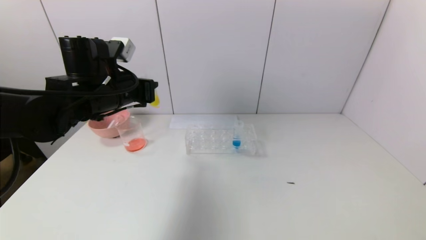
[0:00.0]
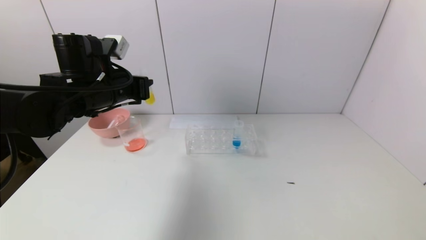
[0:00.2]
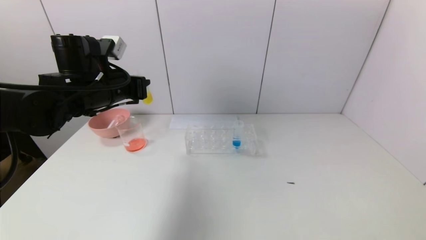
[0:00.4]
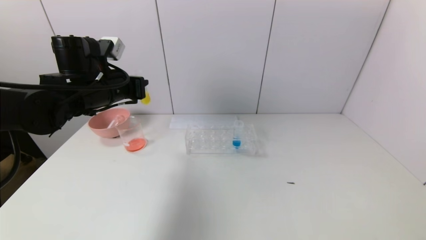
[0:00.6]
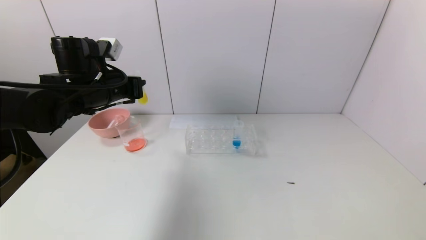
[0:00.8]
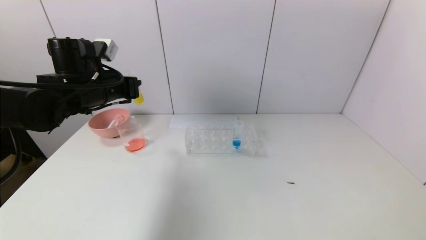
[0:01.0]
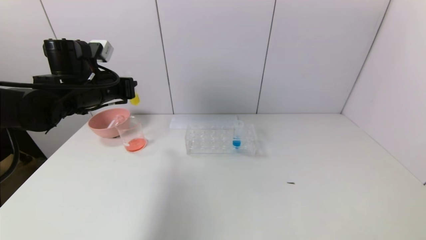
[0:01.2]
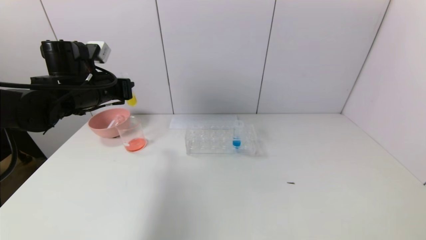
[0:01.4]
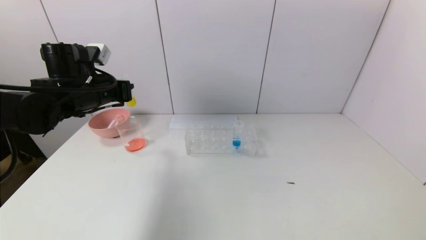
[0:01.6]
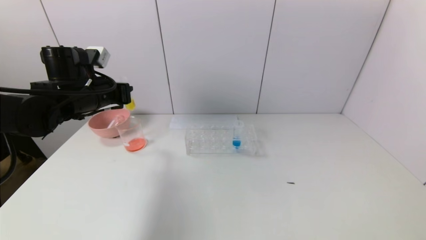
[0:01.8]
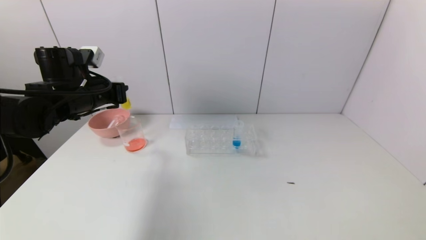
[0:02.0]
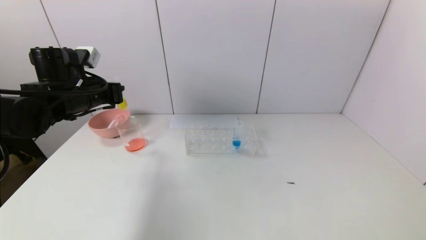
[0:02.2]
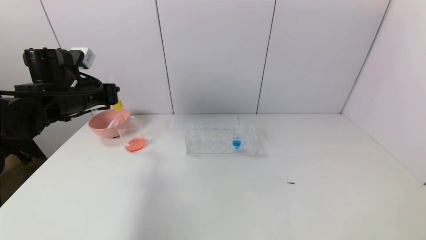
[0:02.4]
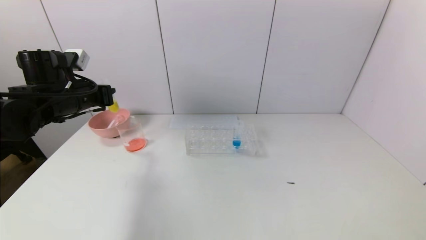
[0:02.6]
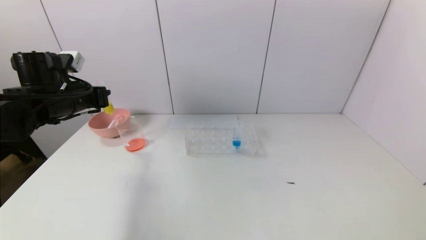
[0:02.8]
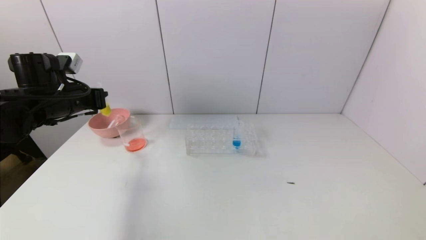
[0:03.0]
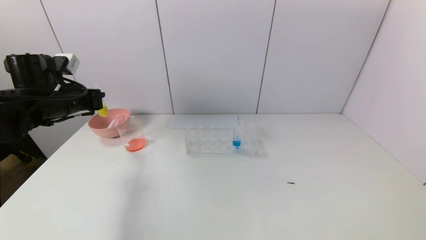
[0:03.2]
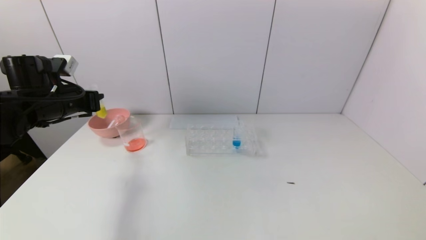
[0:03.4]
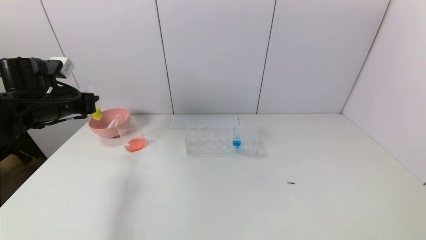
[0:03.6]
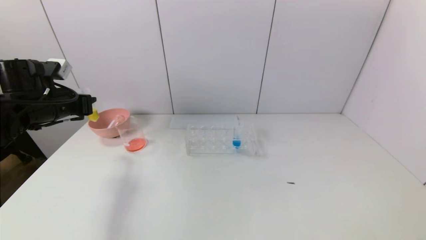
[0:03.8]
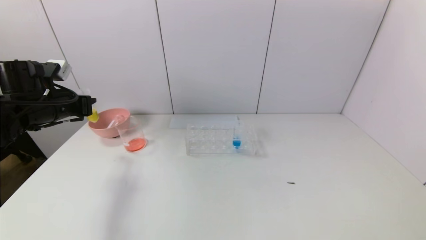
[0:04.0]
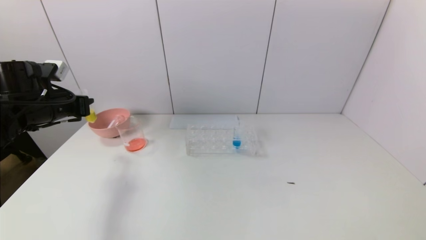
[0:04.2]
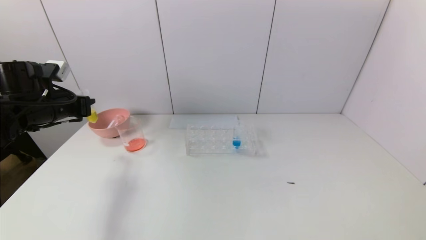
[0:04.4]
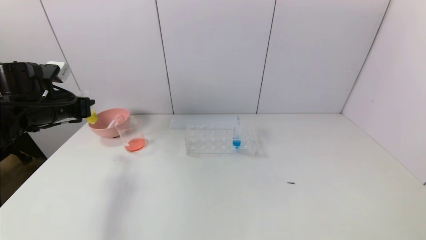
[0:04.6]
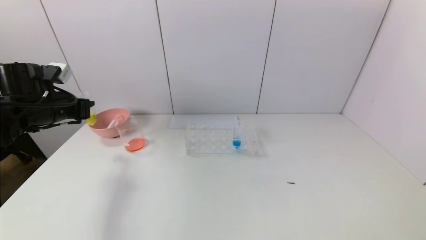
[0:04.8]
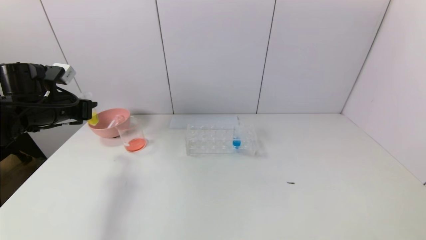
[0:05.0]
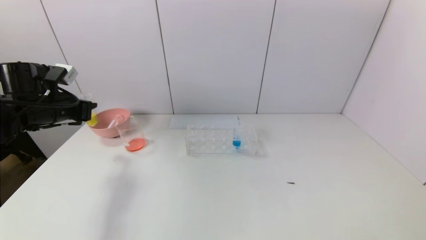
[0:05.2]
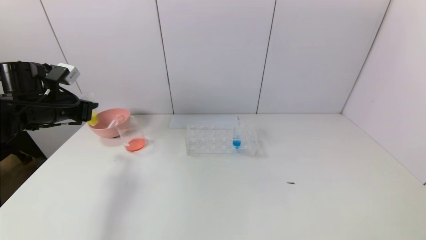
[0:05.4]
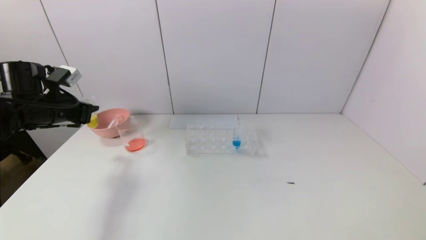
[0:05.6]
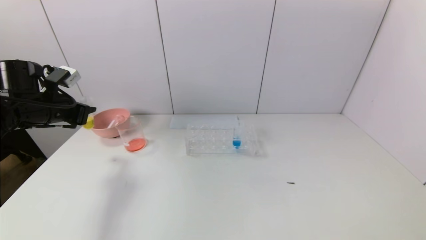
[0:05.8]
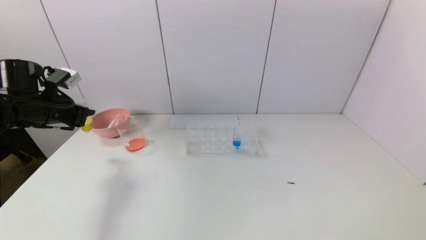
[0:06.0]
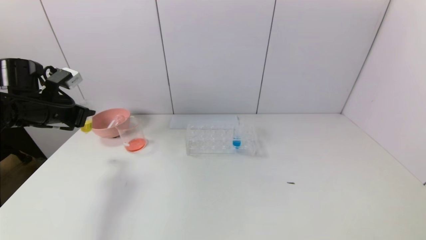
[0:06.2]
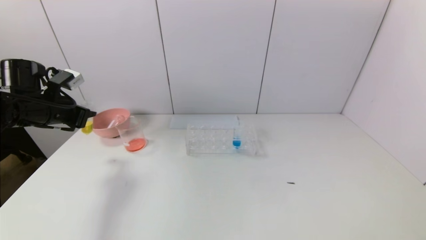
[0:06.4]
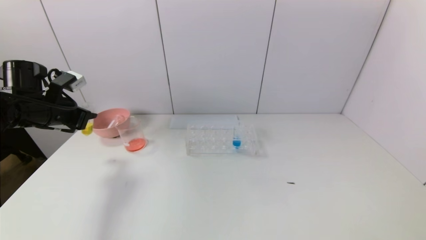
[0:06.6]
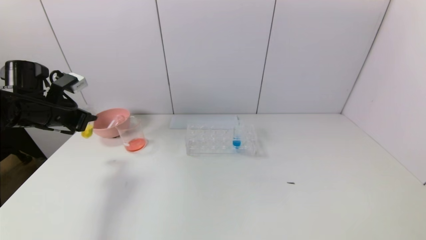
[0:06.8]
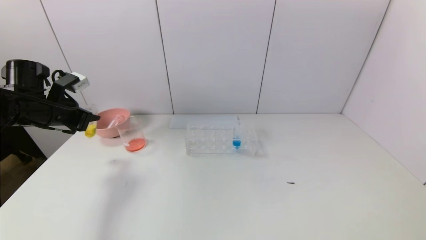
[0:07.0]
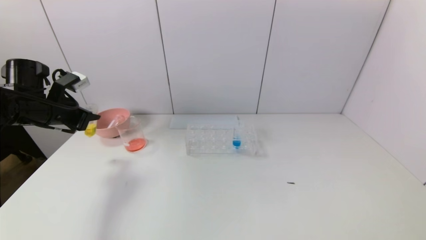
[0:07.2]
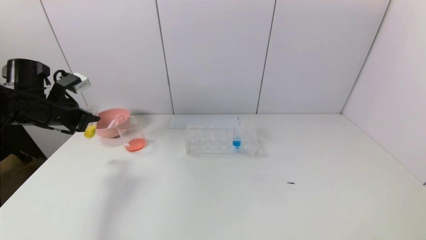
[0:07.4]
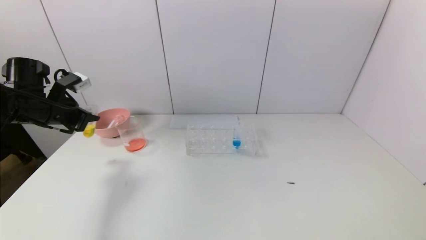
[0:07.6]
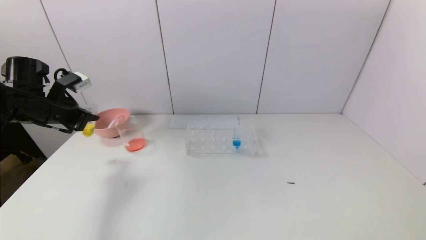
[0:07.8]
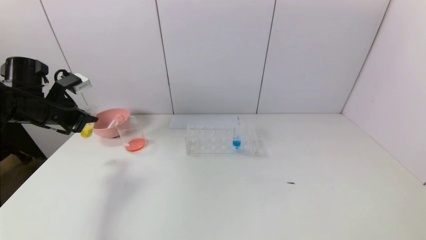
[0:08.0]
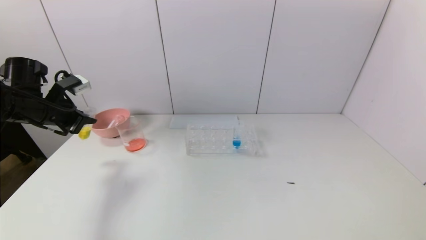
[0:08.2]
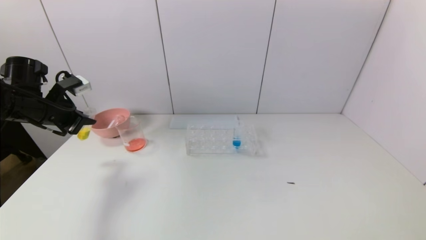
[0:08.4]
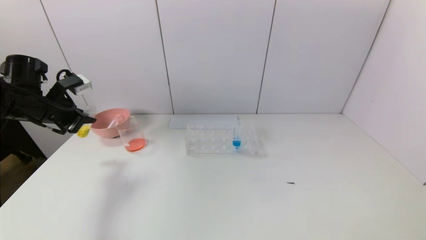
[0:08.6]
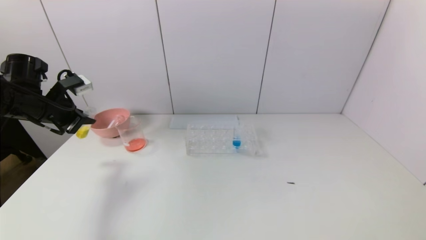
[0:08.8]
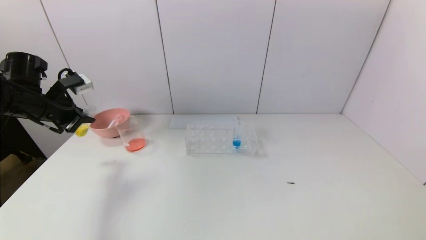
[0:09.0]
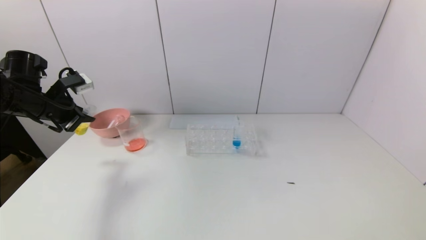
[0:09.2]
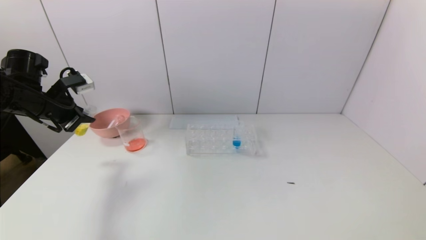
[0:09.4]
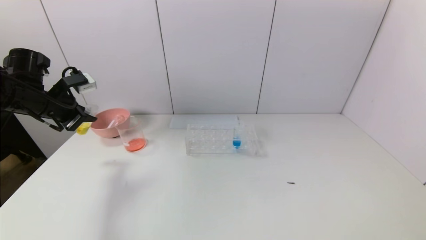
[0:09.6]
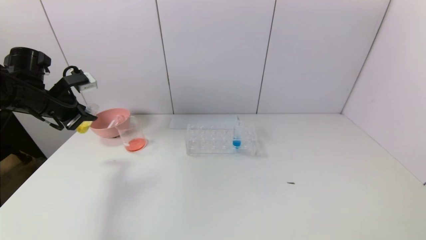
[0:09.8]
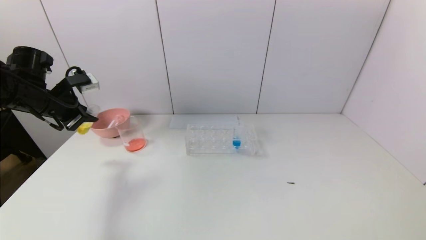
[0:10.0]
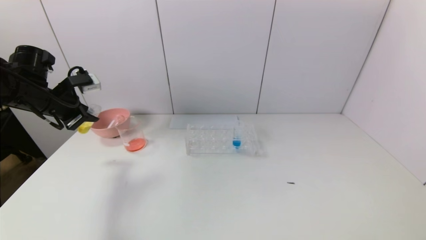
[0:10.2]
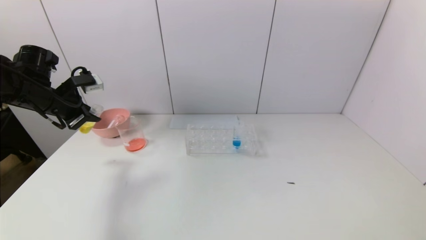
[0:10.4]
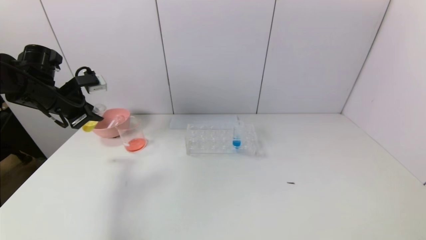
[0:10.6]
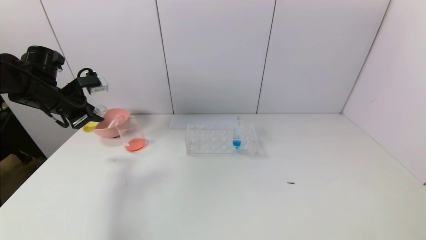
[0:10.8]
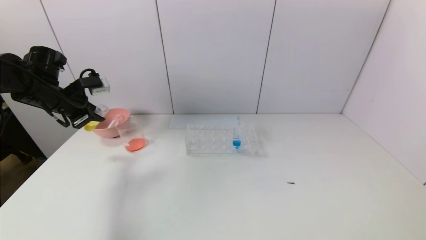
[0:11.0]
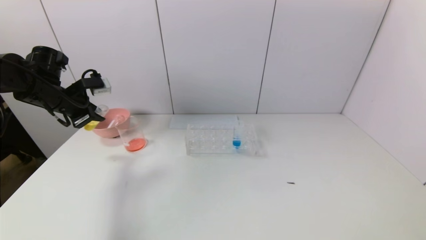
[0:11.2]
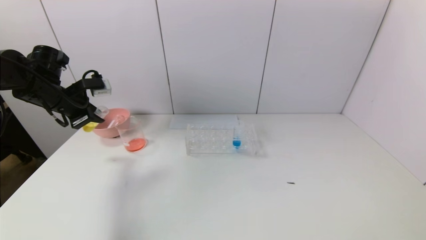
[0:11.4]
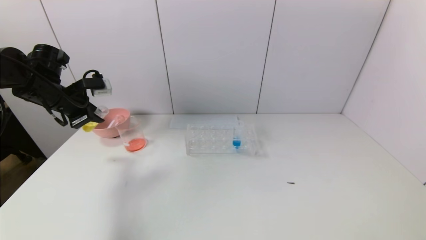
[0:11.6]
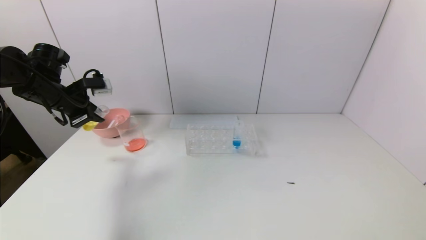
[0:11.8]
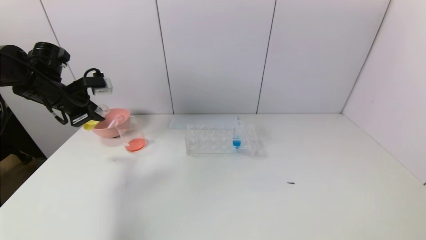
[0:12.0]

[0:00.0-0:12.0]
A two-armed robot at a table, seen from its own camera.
Task of the whole recording: pick up the test tube with yellow pigment and the test tube with red pigment by grippers and pour them into the beaker.
0:00.0 to 0:01.6: The left gripper travels to the left by approximately 5 cm.
0:01.6 to 0:03.0: The left gripper moves to the left, some 5 cm.
0:03.0 to 0:04.4: The grippers make only small movements.
0:04.4 to 0:06.0: The grippers stay close to where they were, moving slightly.
0:06.0 to 0:07.6: The grippers make only small movements.
0:07.6 to 0:09.0: The grippers move only a little.
0:09.0 to 0:10.4: There are only small adjustments of the grippers.
0:10.4 to 0:12.0: The grippers move only a little.

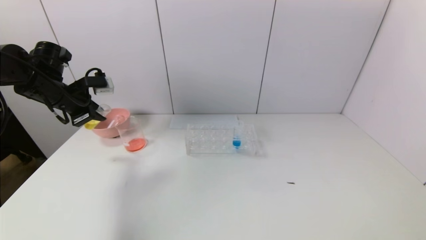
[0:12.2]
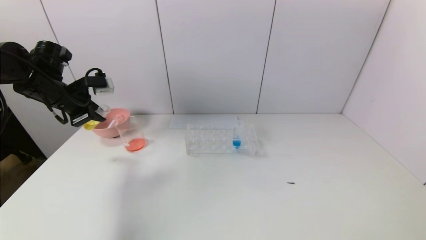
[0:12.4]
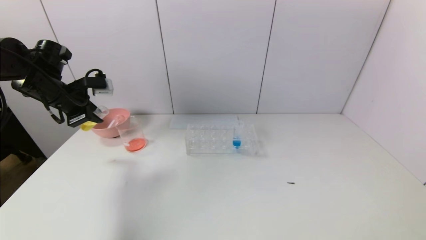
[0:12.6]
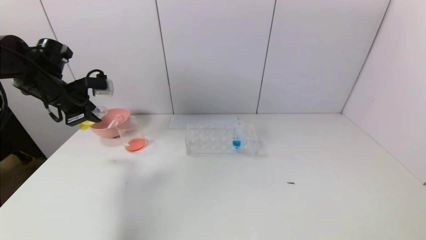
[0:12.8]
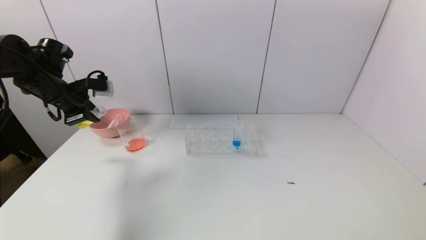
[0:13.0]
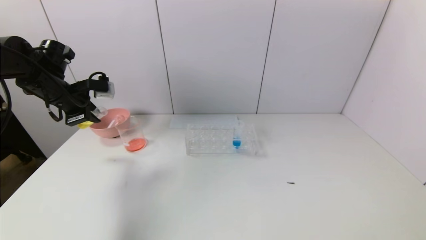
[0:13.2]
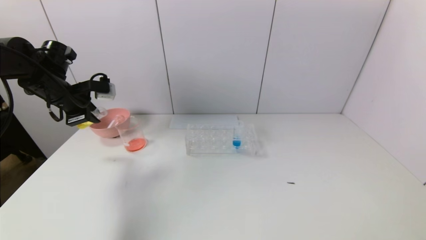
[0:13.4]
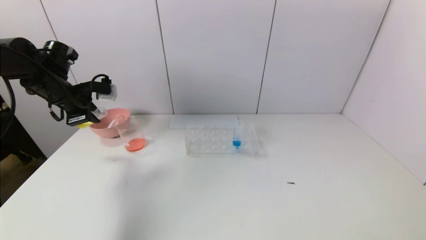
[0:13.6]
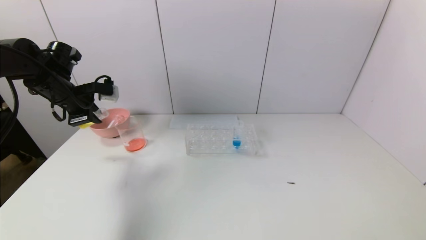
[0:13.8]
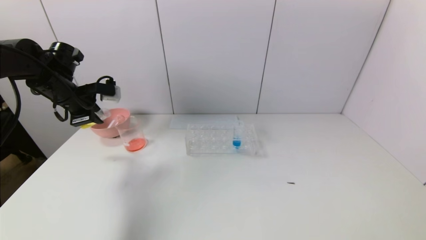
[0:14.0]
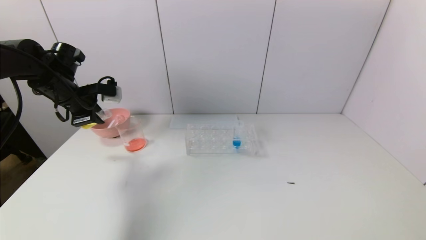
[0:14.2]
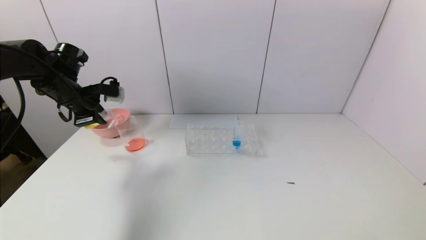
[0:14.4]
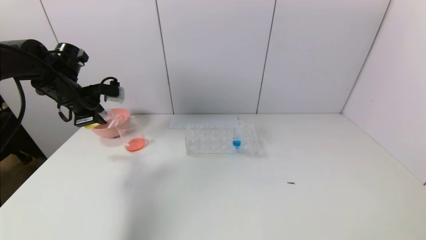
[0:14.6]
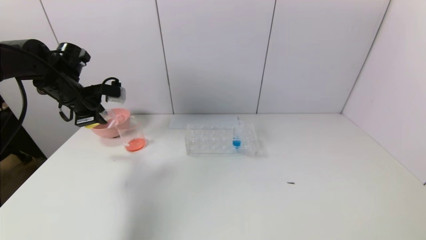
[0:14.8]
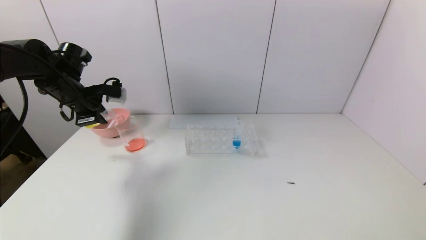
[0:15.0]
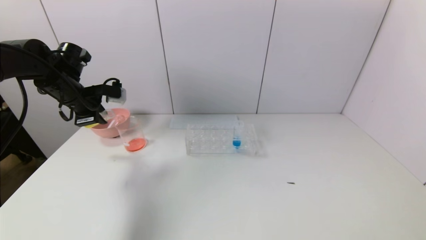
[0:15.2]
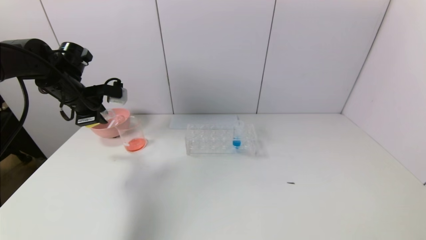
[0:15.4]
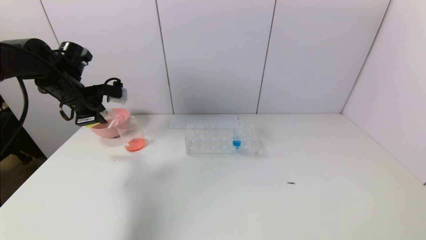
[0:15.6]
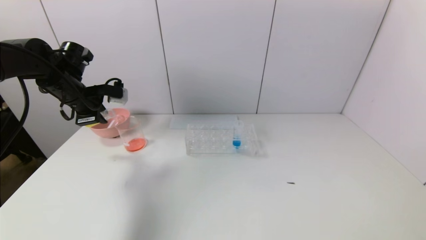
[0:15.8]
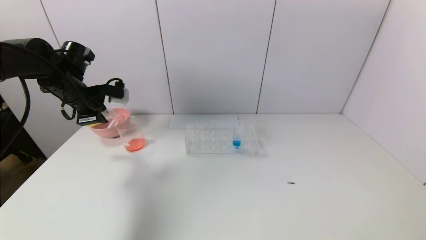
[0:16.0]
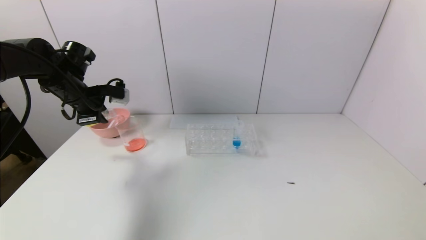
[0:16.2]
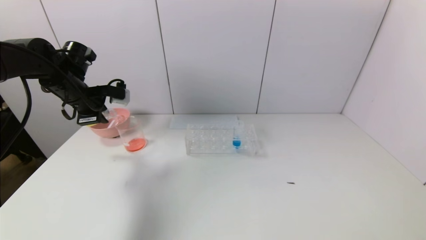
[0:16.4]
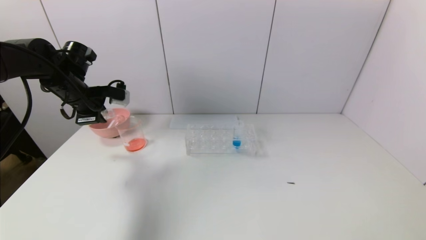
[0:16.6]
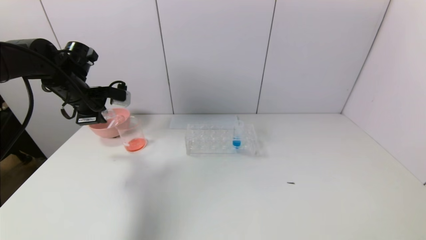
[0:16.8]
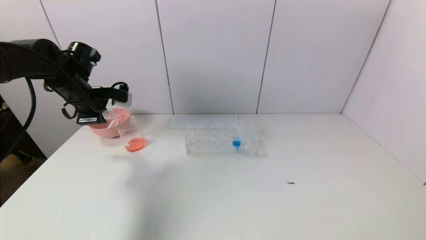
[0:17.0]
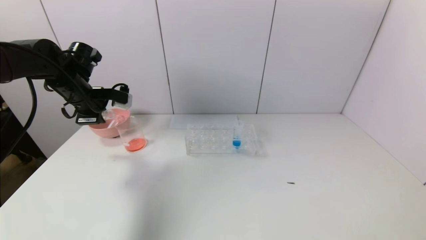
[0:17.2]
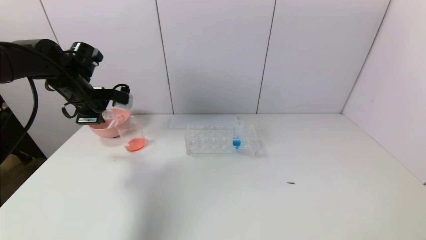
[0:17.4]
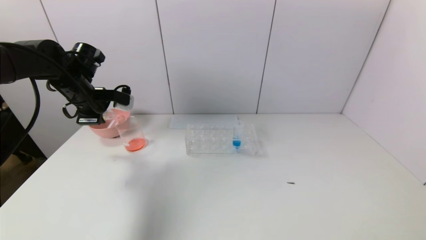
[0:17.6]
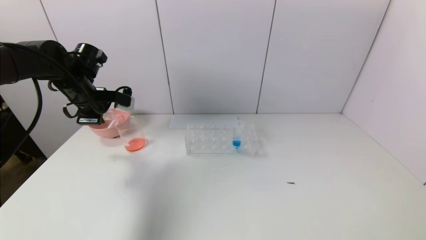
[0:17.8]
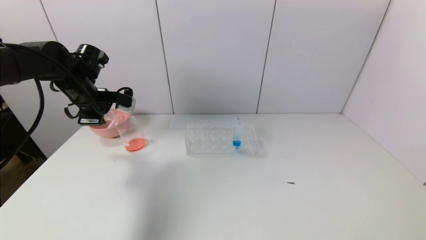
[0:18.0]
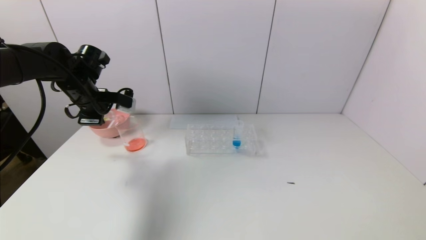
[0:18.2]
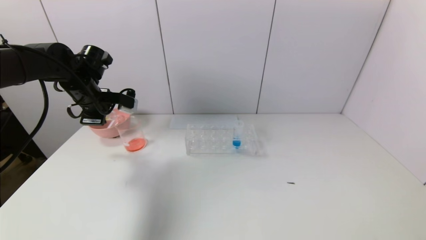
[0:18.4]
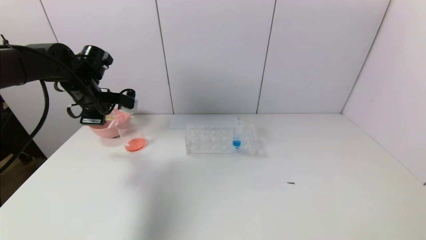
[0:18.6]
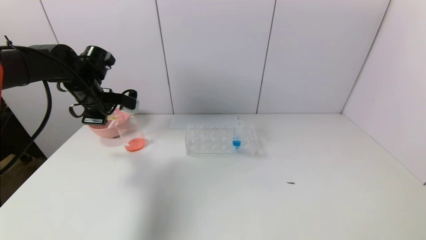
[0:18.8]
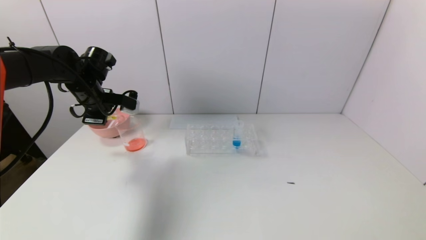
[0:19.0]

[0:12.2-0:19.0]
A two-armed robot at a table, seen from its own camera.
Task of the whole recording: pick up the test tube with yellow pigment and the test tube with red pigment by grippers and pour them into the beaker.
0:12.2 to 0:15.0: The grippers stay close to where they were, moving slightly.
0:15.0 to 0:16.2: Neither gripper changes place.
0:16.2 to 0:19.0: The grippers make only small movements.
